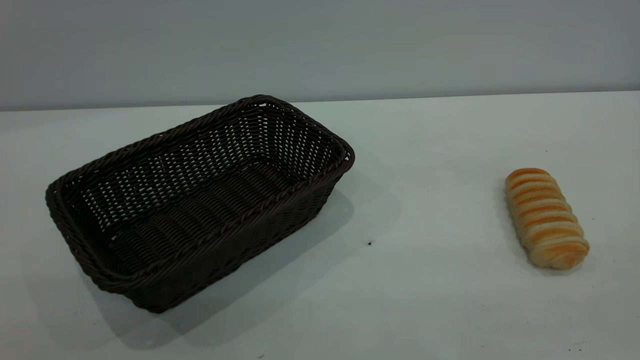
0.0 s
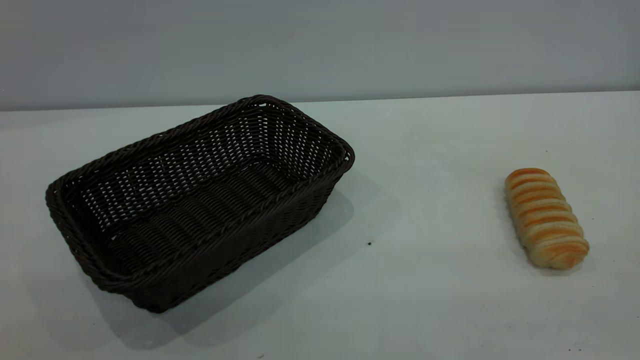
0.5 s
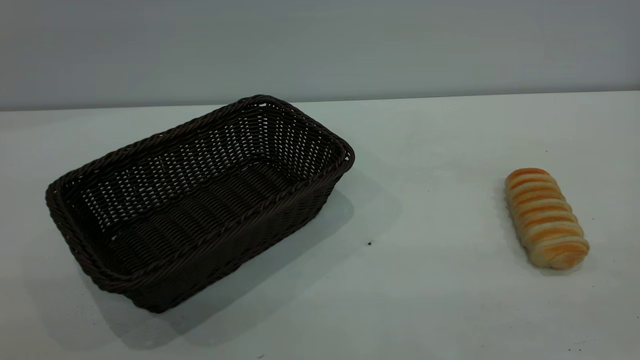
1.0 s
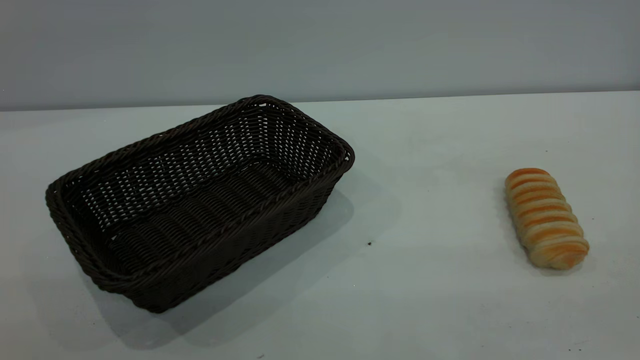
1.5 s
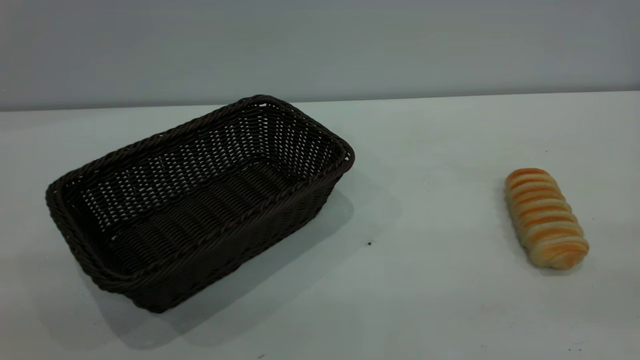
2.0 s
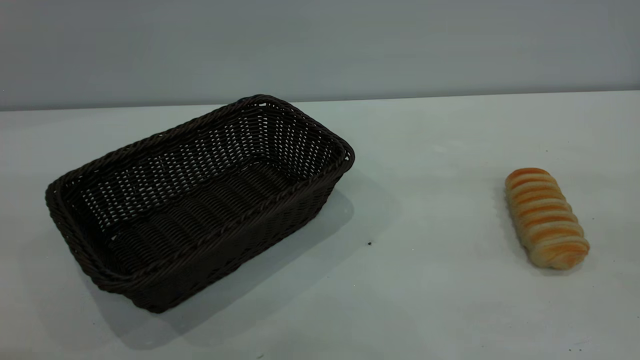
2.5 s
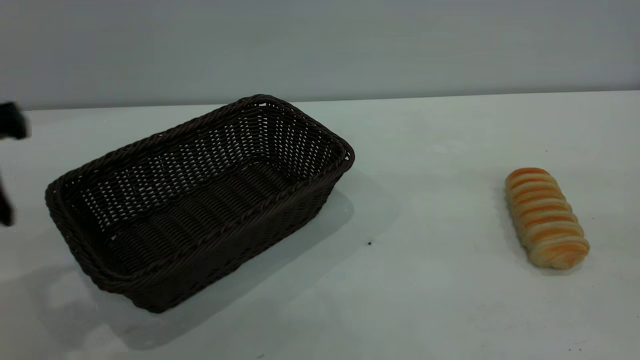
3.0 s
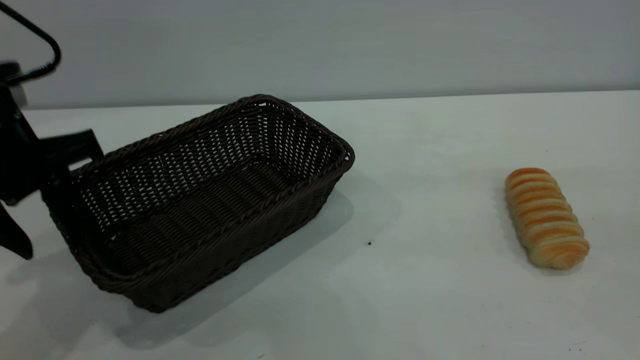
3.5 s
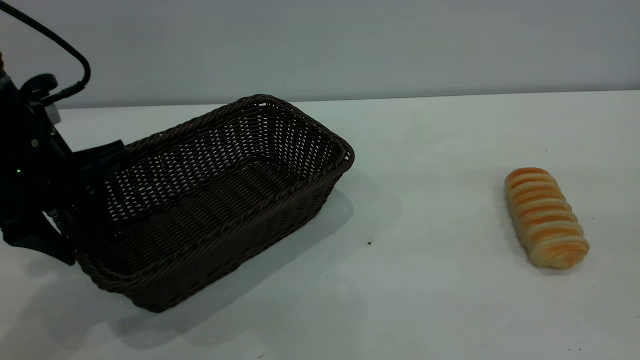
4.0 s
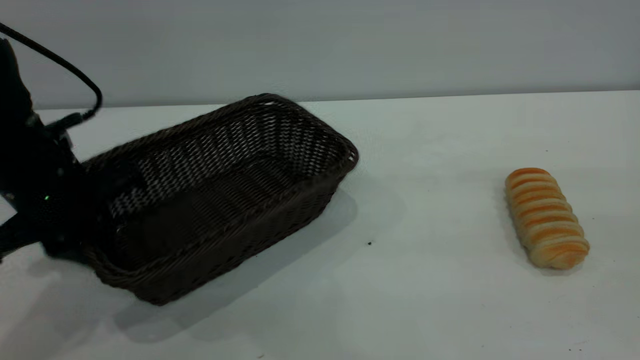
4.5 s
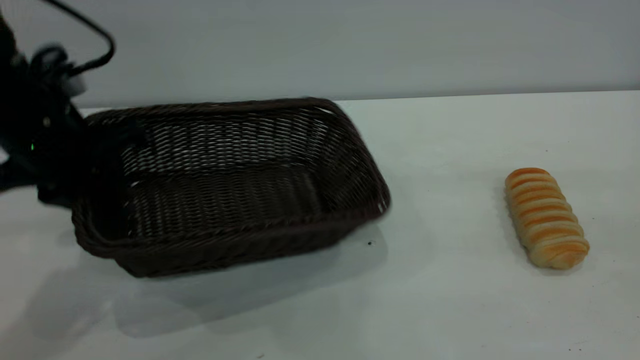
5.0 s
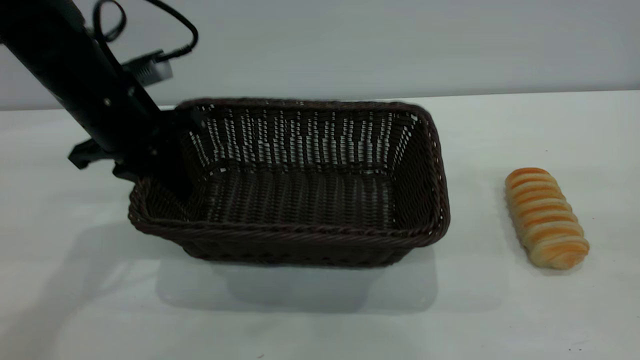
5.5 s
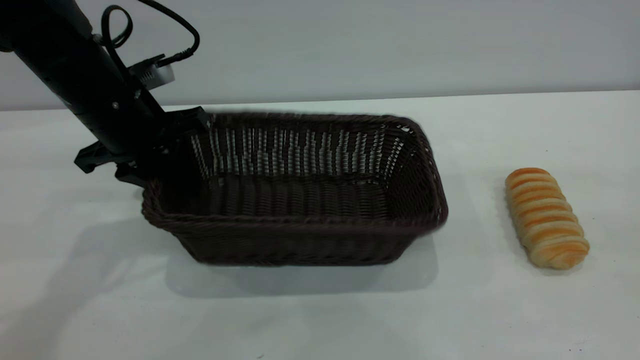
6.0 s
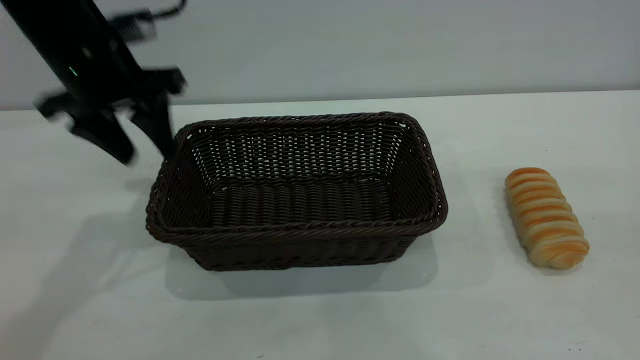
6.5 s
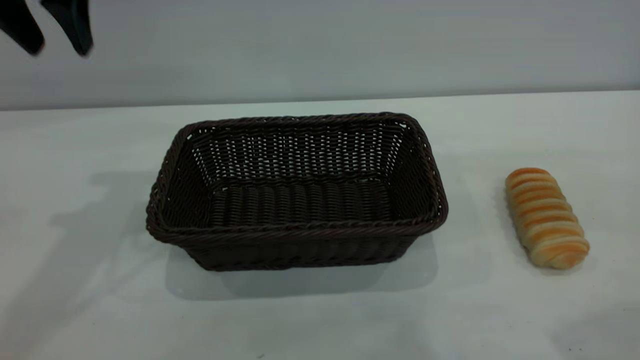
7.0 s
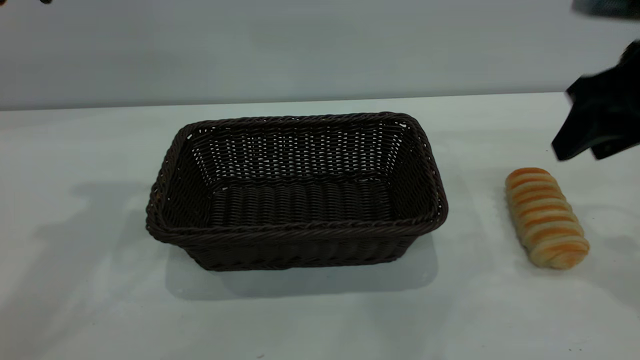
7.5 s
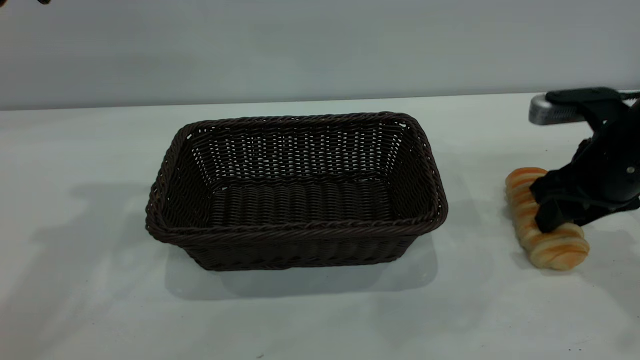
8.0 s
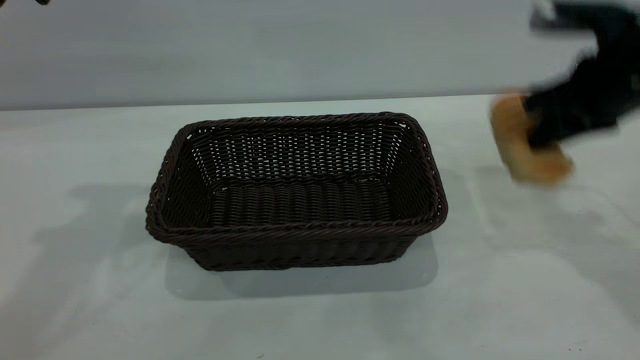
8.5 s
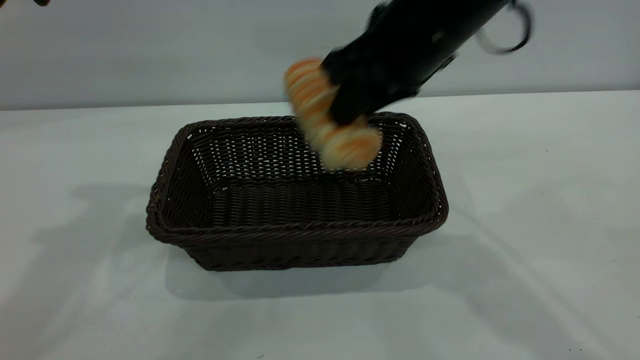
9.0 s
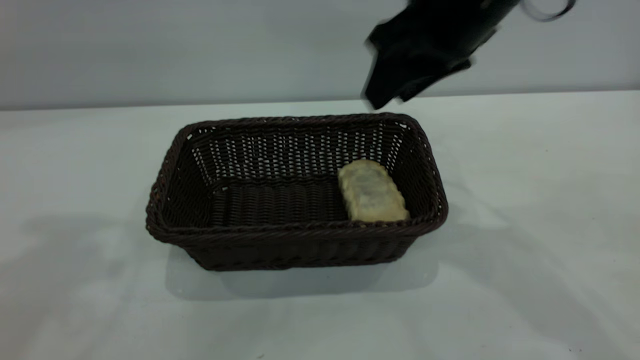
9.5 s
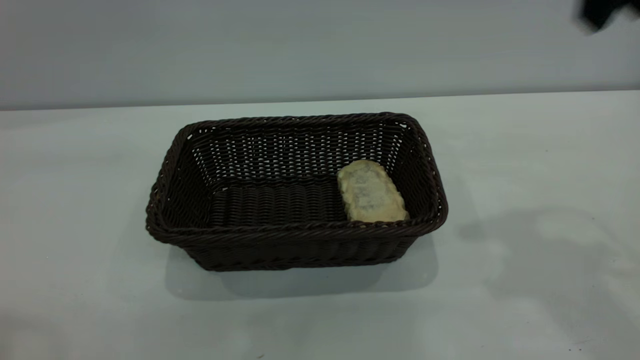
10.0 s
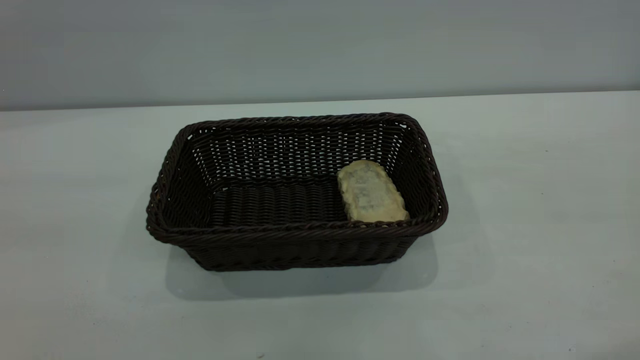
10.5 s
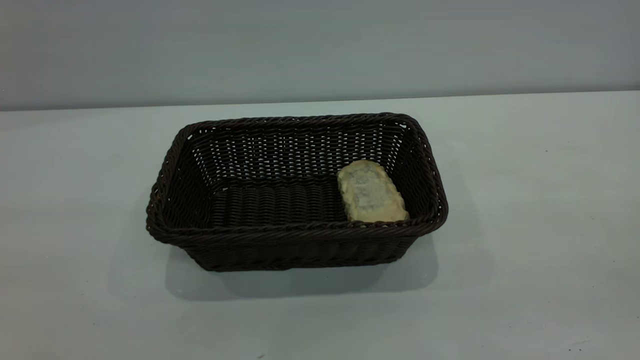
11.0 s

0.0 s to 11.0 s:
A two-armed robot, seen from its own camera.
Task of the whole recording: One hand grasps the black basket and places it in the middle of the table, while the other hand picks up the long bread and puts it into the black basket.
Step, 0.0 to 6.5 s: Move the basket to the center of view.
Step, 9.0 to 9.5 s: place the bread into the basket.
2.0 to 3.5 s: The left gripper goes about 35 cm forward and downward.
3.5 to 5.5 s: The left gripper is displaced forward by about 10 cm, and closes up.
5.5 to 7.5 s: The left gripper shifts about 20 cm upward, and opens up. The right gripper is displaced forward and downward by about 25 cm.
7.5 to 9.0 s: The right gripper is displaced to the left by roughly 20 cm, and closes up.
9.0 to 11.0 s: The left gripper moves backward, approximately 30 cm. Meanwhile the right gripper is displaced backward and to the right by roughly 35 cm, and opens up.
